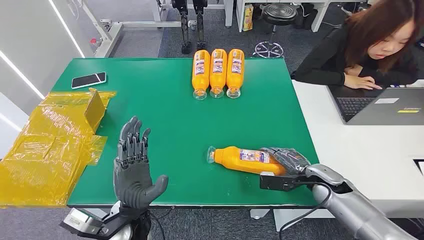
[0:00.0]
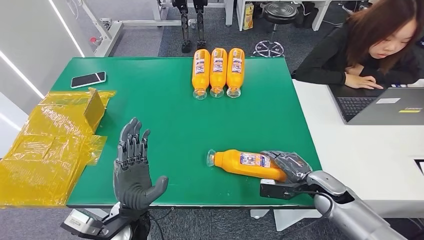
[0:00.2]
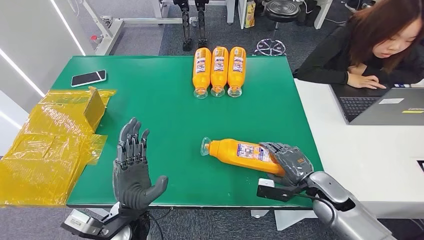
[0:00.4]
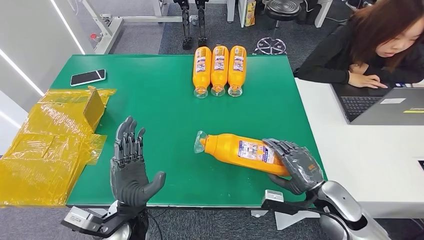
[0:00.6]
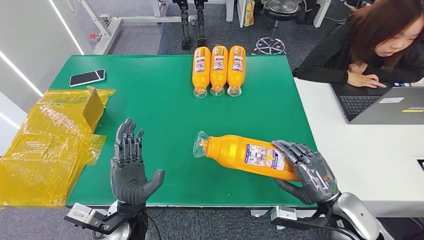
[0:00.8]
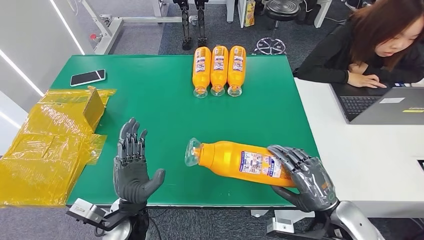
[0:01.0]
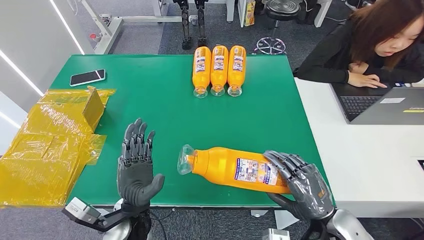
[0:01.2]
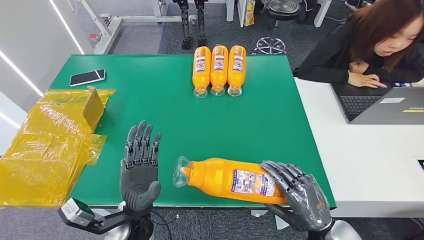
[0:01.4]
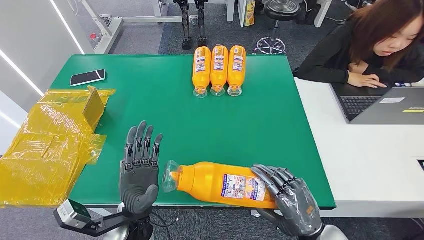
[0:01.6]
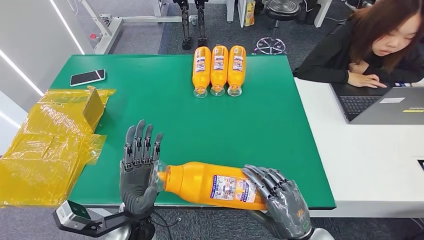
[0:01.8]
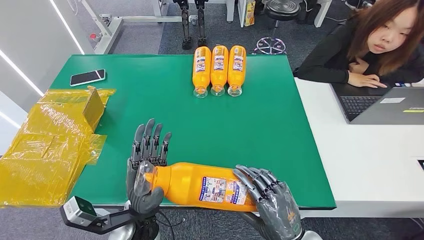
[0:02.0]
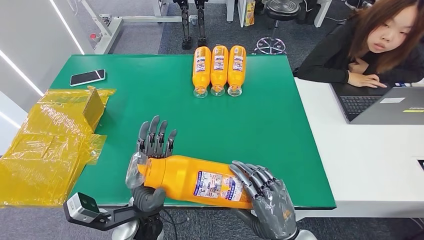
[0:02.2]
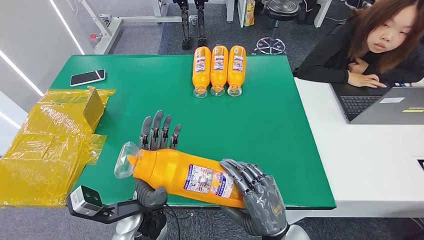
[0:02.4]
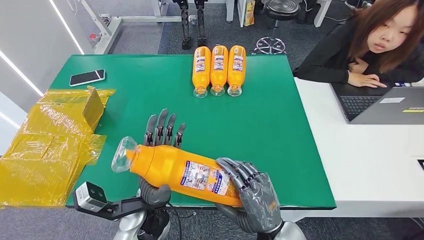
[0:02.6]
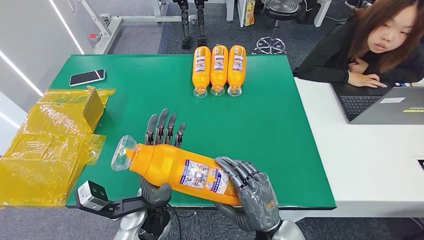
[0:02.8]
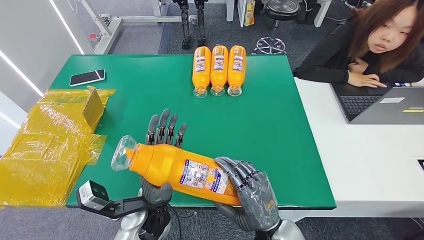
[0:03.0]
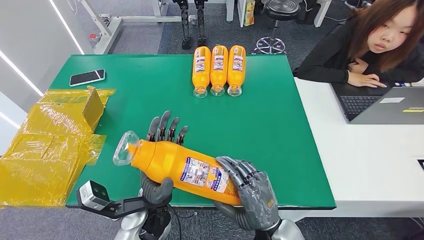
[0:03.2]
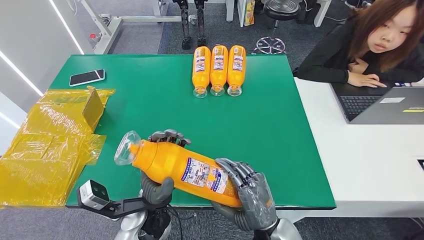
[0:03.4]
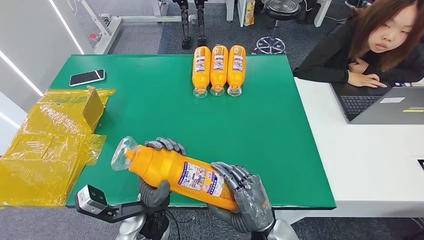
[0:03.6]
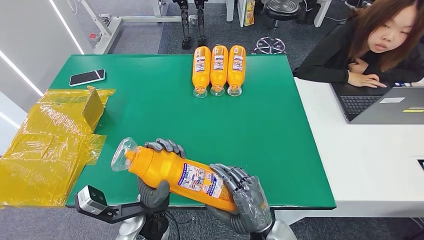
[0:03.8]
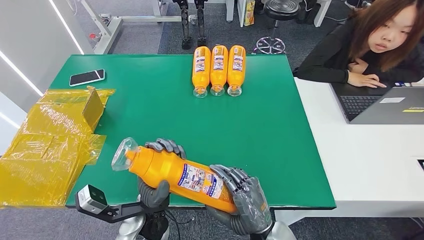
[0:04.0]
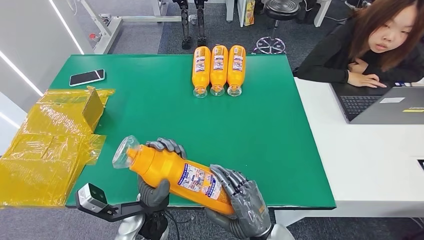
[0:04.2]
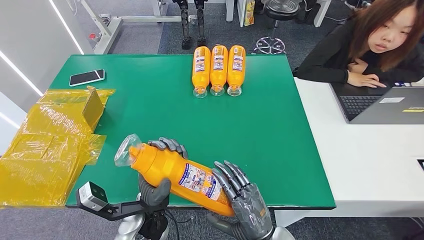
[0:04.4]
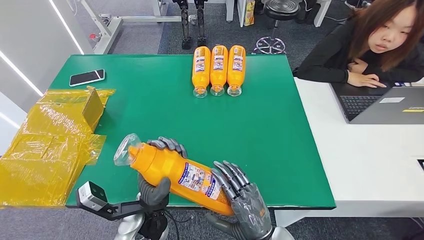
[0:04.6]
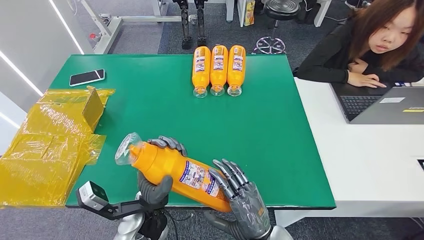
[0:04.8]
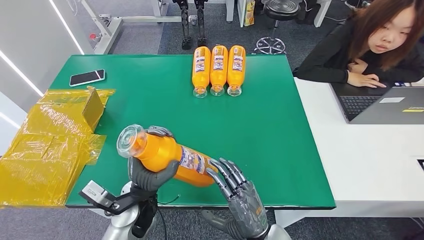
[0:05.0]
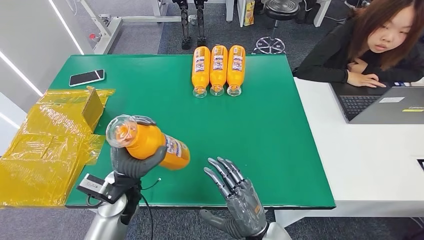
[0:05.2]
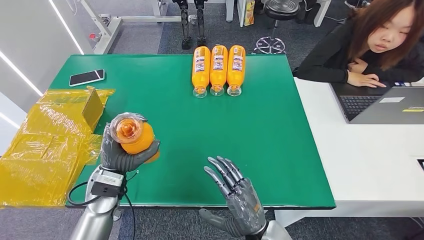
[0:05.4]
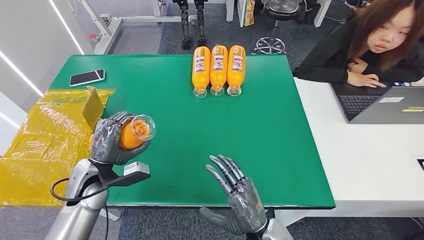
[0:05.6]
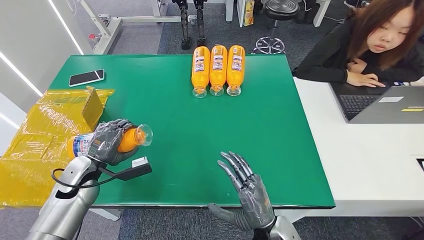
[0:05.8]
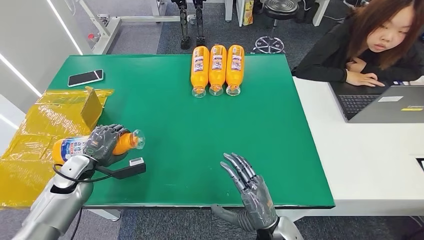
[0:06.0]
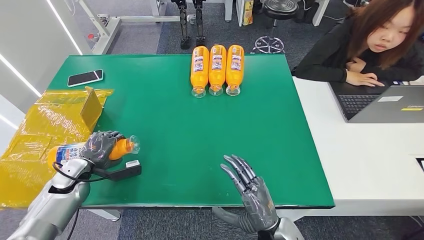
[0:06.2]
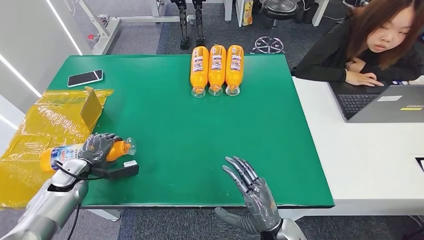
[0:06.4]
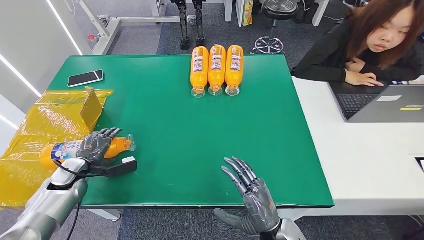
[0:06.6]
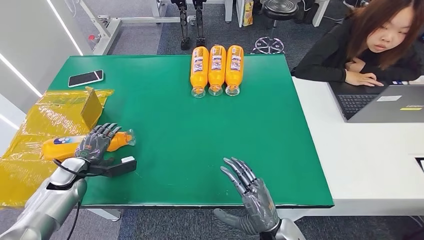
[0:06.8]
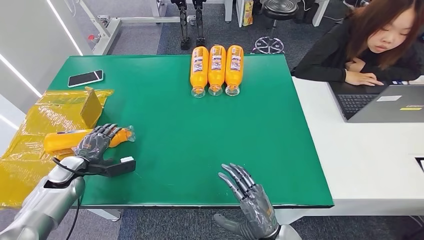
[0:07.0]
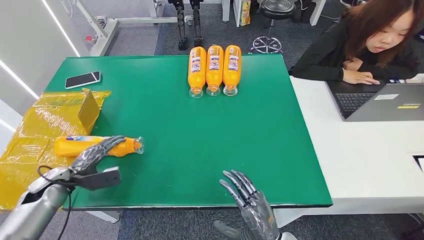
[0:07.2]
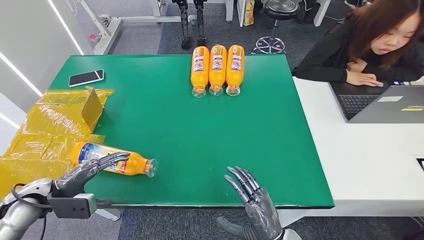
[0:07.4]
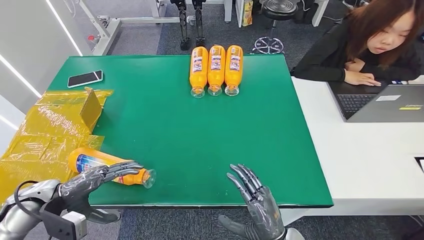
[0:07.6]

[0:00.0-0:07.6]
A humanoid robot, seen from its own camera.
Step, 0:00.0 to 0:02.4: Pick up the bottle from the table.
Step, 0:02.6 to 0:07.6: Turn the bottle to the front side.
0:01.6 to 0:03.0: The right hand is displaced to the left by some 10 cm.
0:03.0 to 0:04.6: The hands move only a little.
0:04.6 to 0:06.0: The left hand goes roughly 30 cm to the left.
0:06.0 to 0:07.6: The left hand goes about 10 cm backward and upward.
